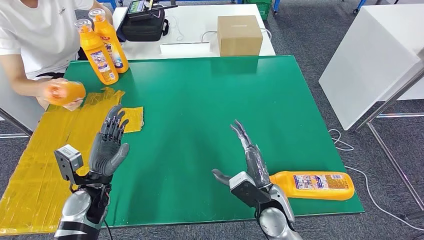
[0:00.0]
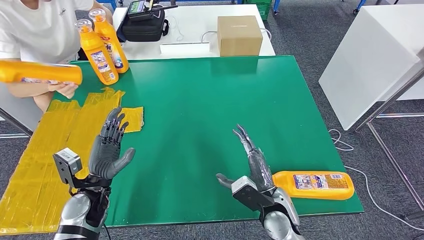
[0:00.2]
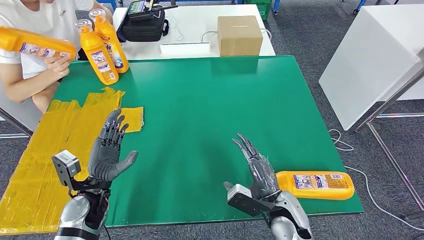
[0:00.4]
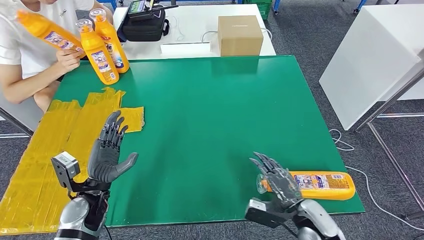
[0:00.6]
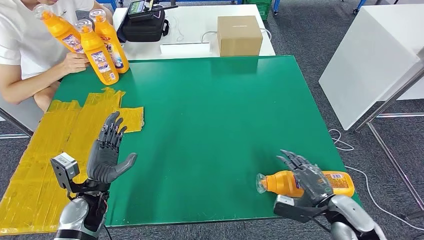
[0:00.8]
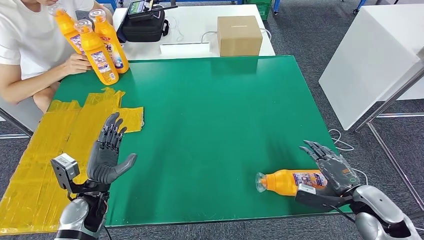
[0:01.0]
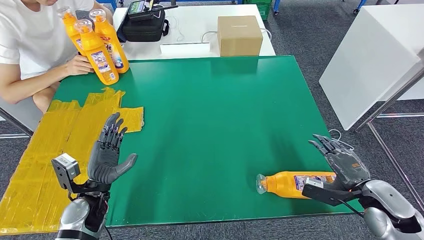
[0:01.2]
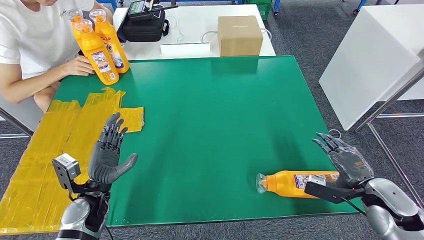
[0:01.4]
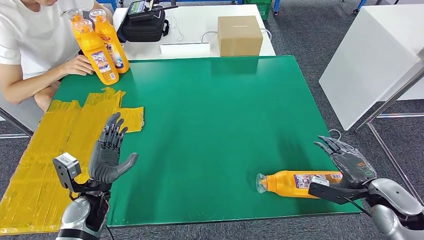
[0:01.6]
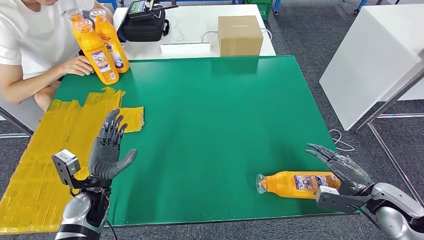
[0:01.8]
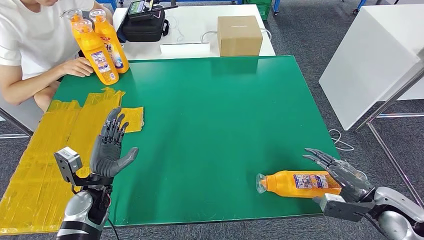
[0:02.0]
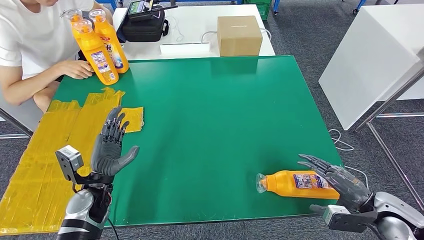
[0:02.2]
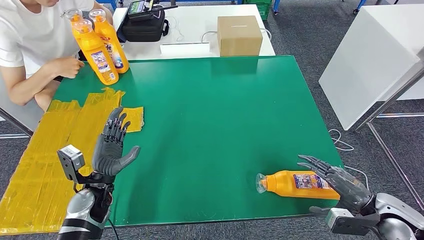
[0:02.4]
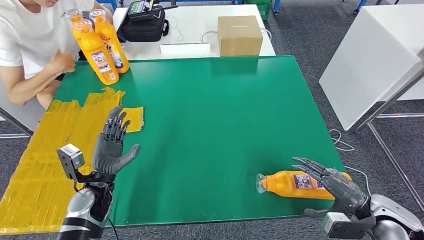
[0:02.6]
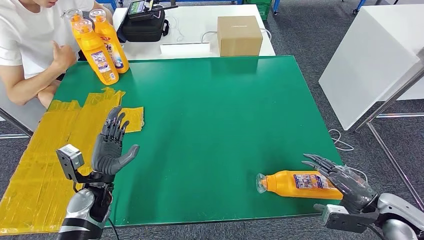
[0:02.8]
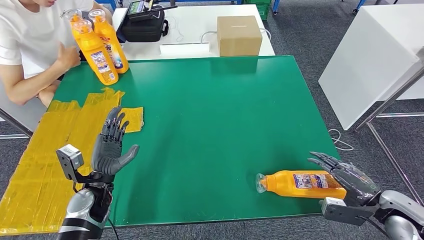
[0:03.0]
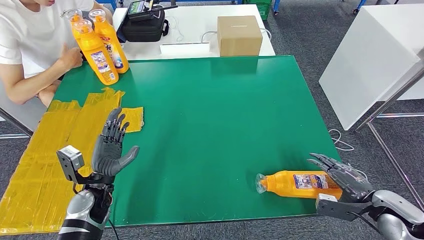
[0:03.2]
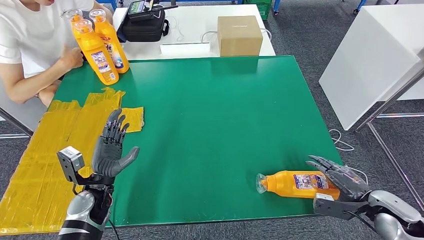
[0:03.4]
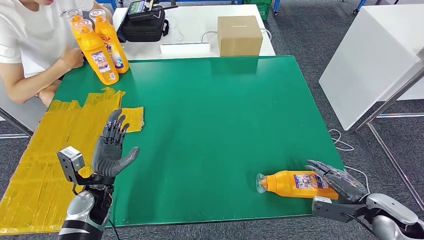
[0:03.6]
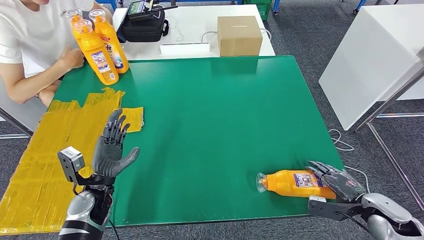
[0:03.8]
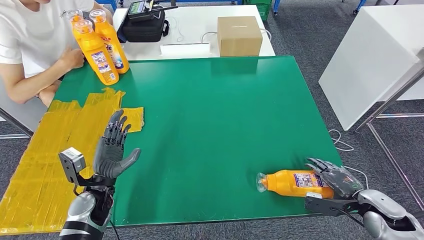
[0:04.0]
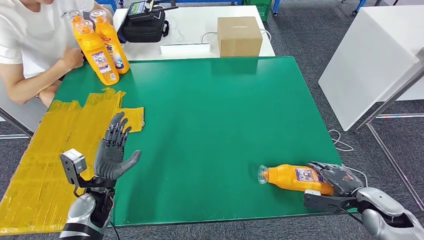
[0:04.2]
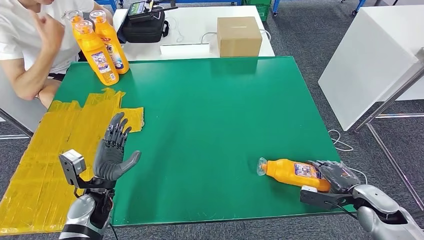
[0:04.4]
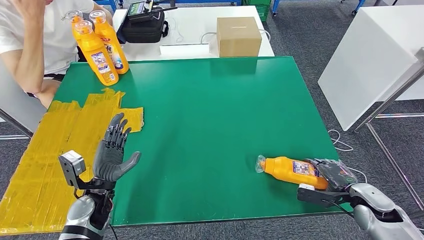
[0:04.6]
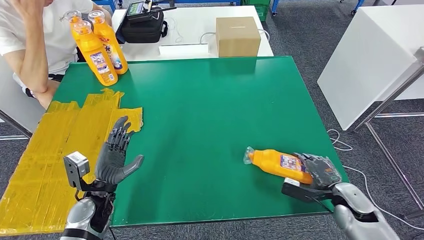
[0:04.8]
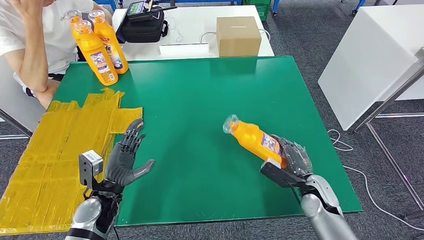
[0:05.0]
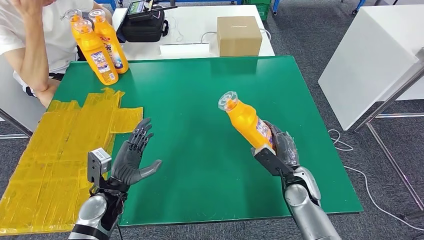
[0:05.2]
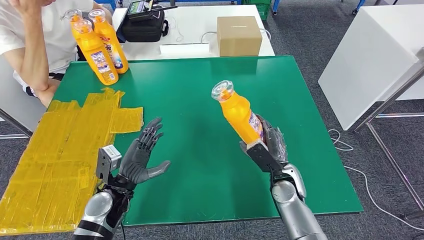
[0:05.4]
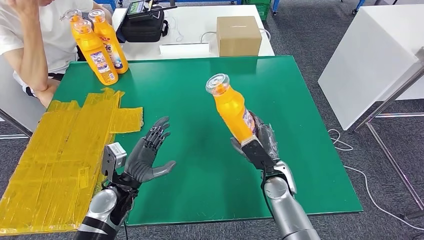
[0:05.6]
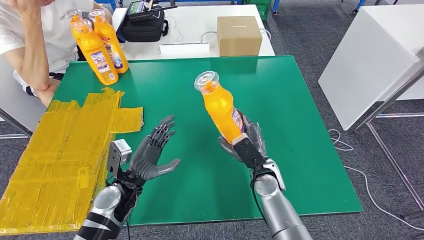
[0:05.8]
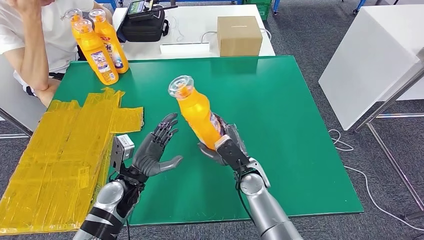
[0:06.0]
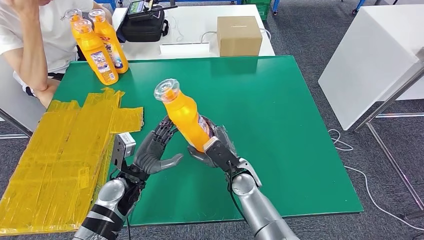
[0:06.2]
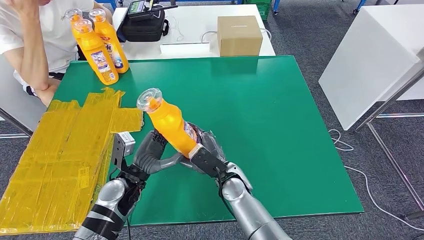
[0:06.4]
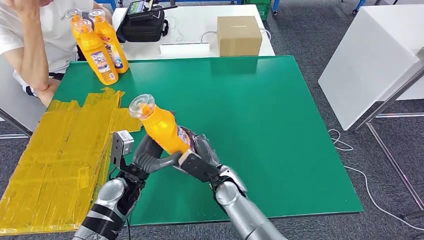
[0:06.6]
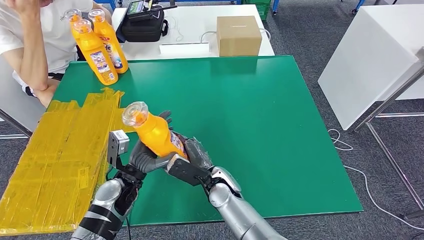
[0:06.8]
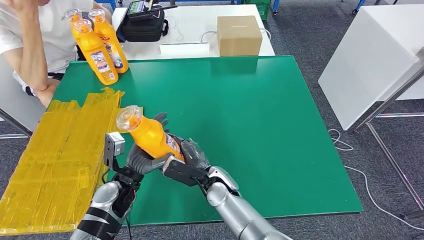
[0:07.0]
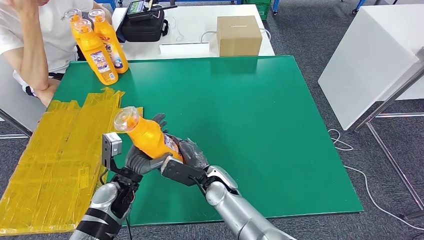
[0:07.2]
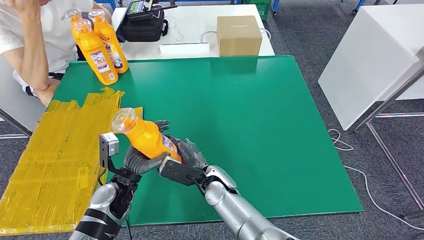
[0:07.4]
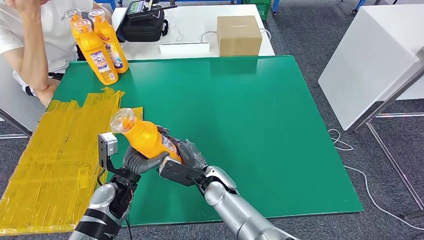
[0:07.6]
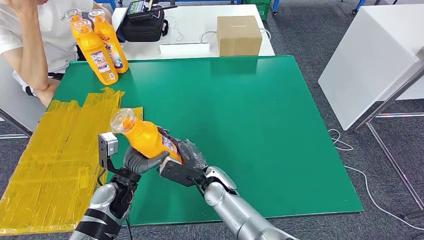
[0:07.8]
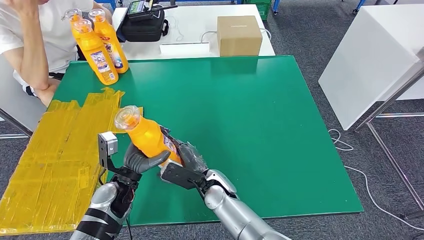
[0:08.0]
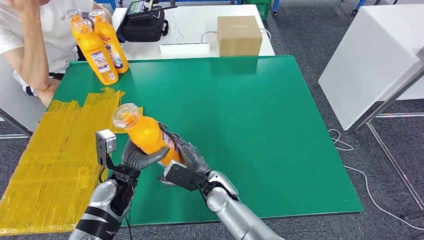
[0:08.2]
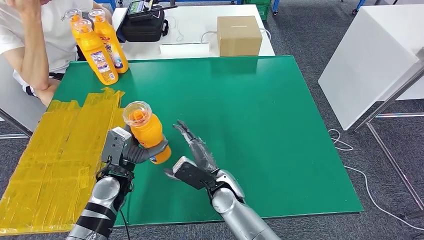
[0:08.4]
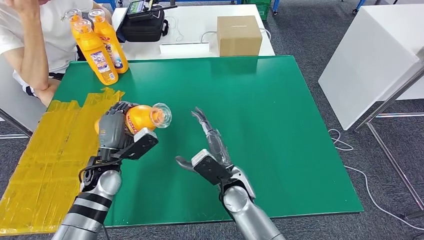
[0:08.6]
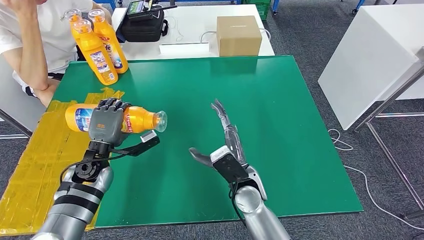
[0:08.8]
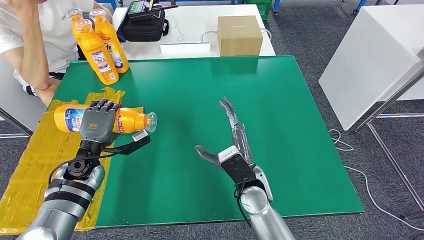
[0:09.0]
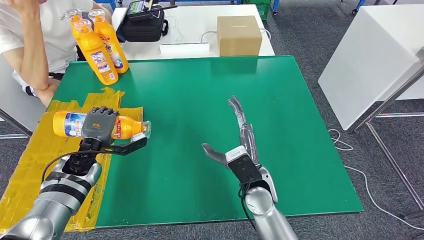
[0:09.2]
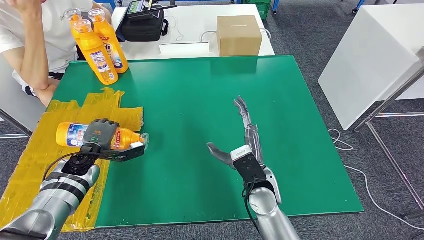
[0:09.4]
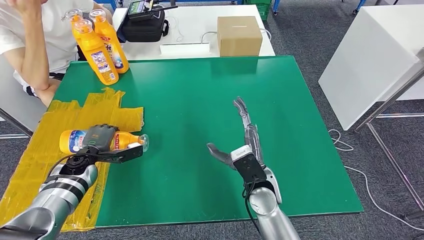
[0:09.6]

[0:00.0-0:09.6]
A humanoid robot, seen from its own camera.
Step, 0:01.2 to 0:06.2: Pick up the bottle from the table.
0:00.0 to 0:01.6: The right hand shifts some 25 cm to the right.
0:03.2 to 0:04.8: The right hand moves downward and to the left, roughly 10 cm.
0:06.4 to 0:08.0: The right hand goes roughly 5 cm to the left.
0:08.0 to 0:09.6: The right hand shifts roughly 10 cm to the right and upward. Meanwhile the left hand is displaced to the left and forward by roughly 15 cm.

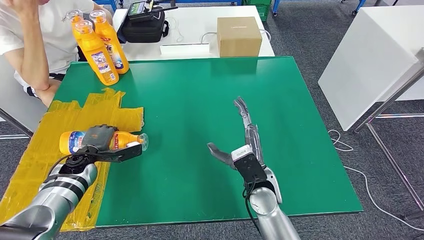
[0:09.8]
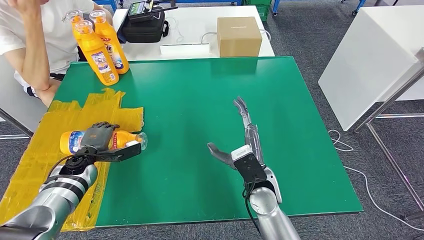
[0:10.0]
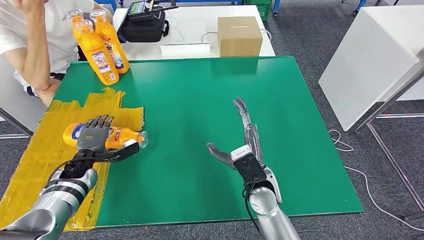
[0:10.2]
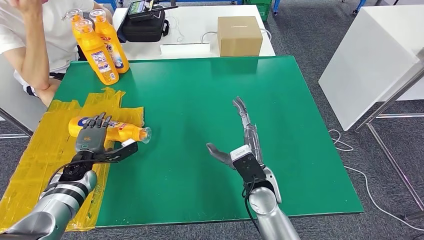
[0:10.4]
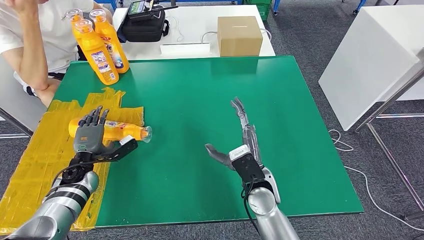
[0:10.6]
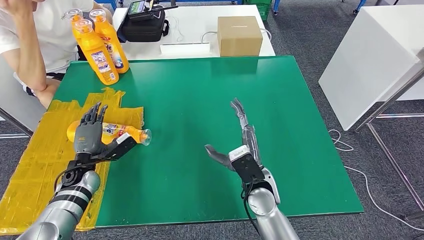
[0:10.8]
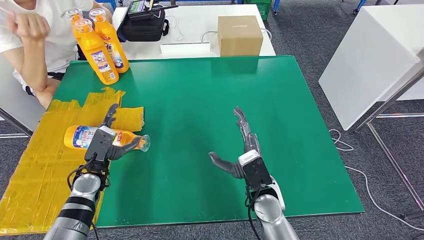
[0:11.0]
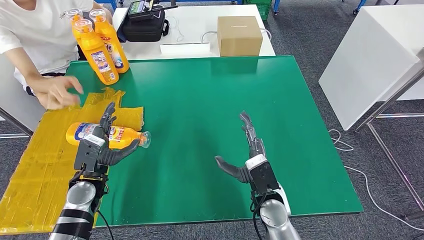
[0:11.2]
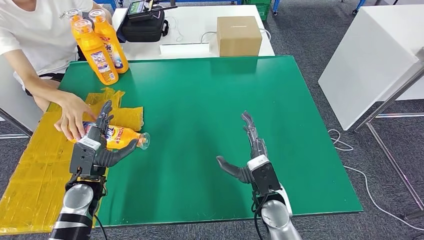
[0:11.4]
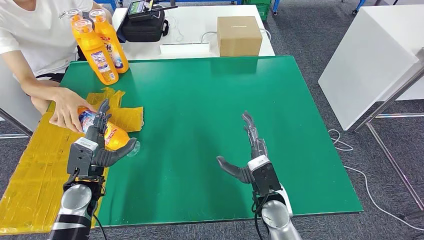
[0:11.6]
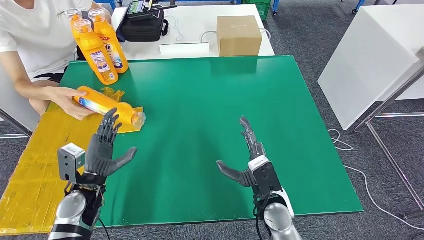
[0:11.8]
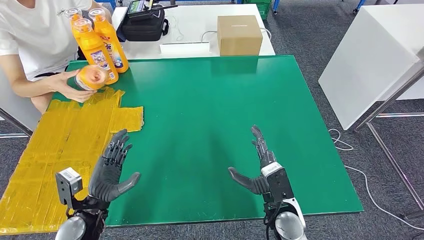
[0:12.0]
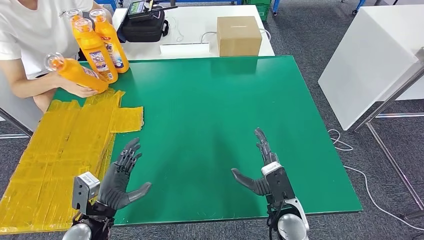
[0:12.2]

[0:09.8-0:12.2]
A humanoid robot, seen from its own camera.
Step, 0:09.8 to 0:12.2: Flip the bottle to face forward.
0:09.8 to 0:11.0: The left hand is displaced backward by roughly 5 cm.
0:11.0 to 0:12.2: The left hand is displaced backward by roughly 10 cm, while the right hand moves to the right, approximately 5 cm.
